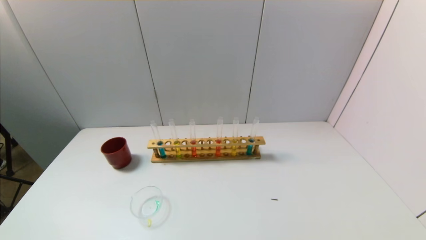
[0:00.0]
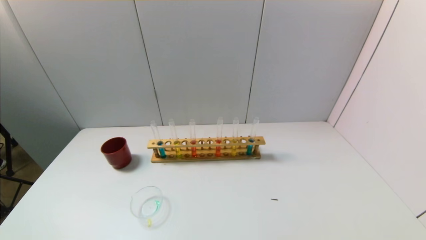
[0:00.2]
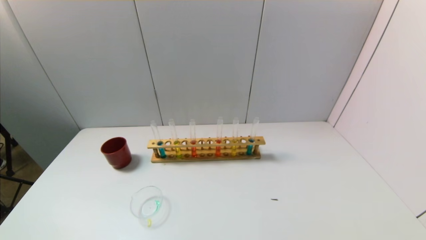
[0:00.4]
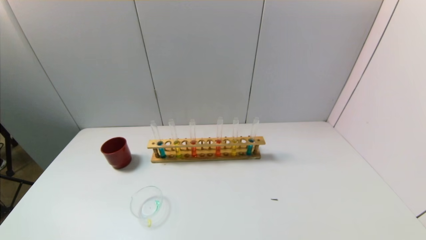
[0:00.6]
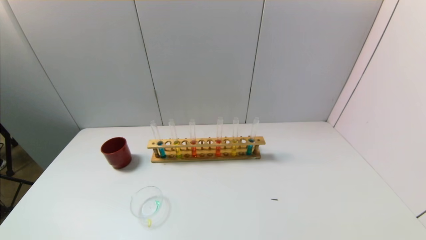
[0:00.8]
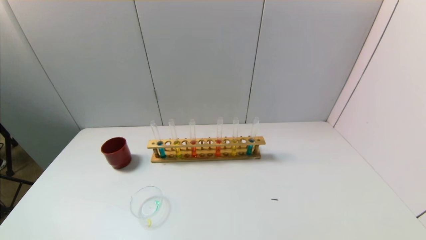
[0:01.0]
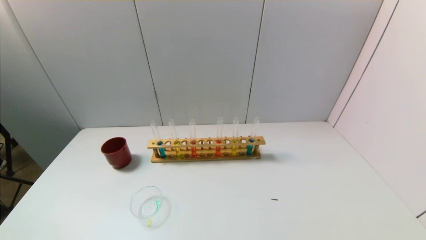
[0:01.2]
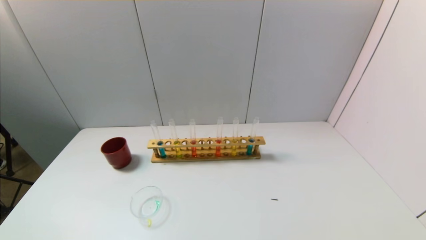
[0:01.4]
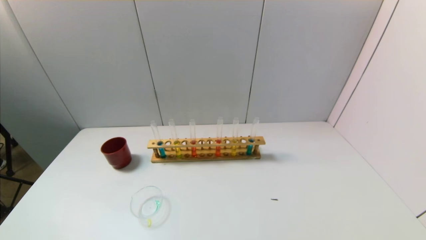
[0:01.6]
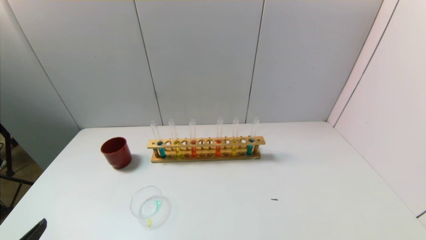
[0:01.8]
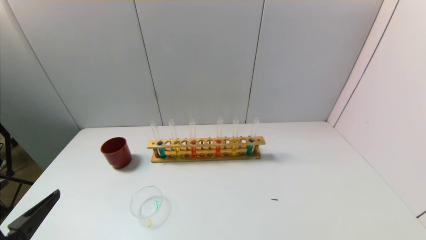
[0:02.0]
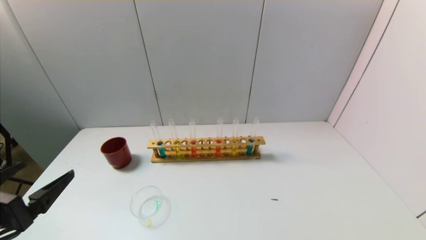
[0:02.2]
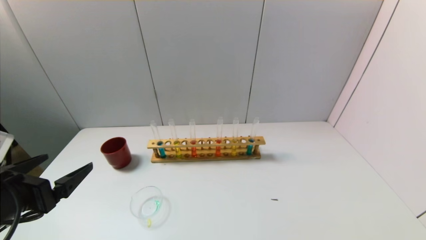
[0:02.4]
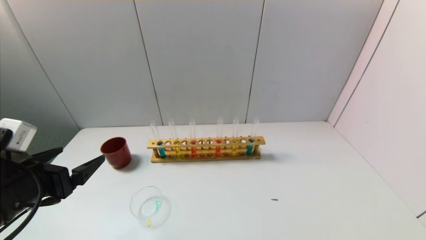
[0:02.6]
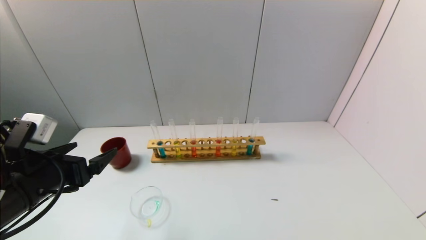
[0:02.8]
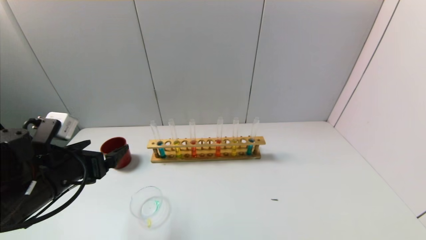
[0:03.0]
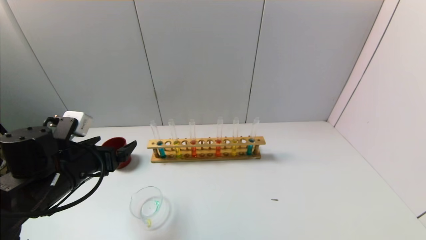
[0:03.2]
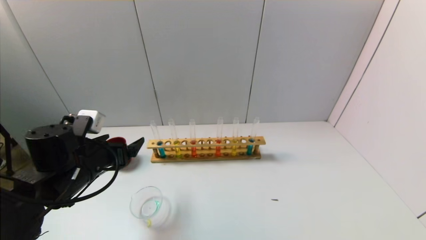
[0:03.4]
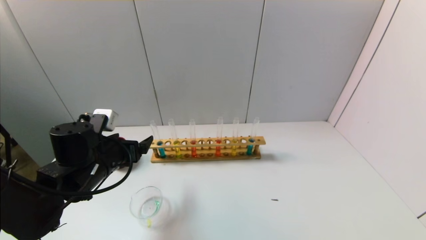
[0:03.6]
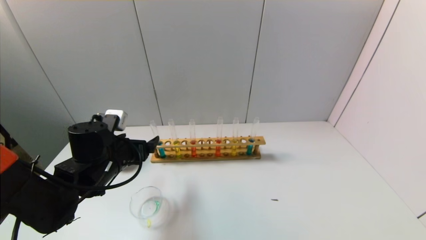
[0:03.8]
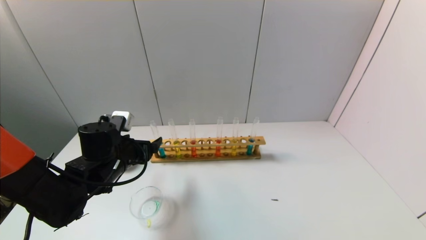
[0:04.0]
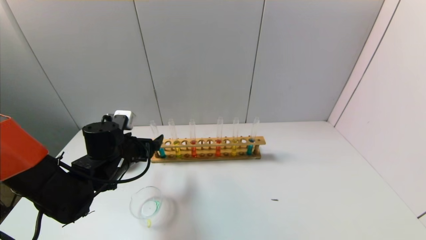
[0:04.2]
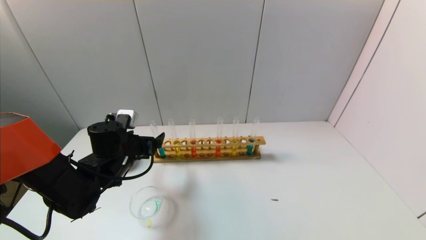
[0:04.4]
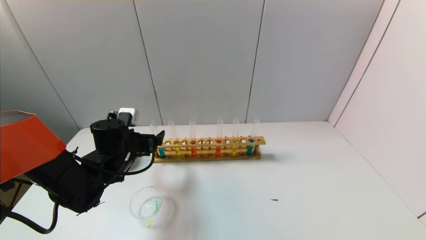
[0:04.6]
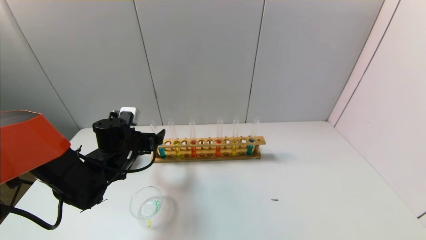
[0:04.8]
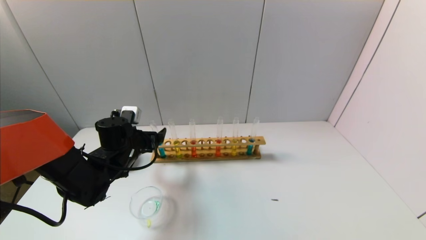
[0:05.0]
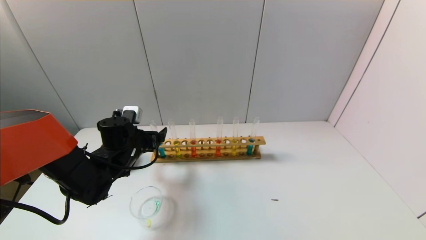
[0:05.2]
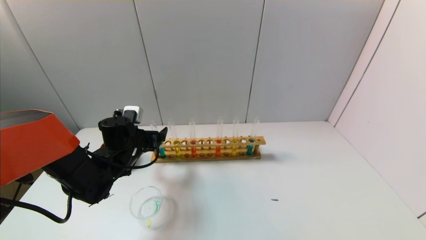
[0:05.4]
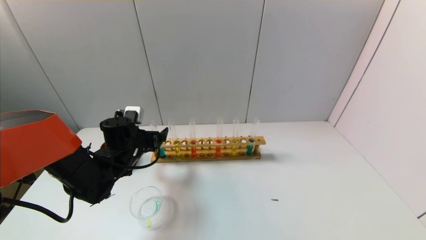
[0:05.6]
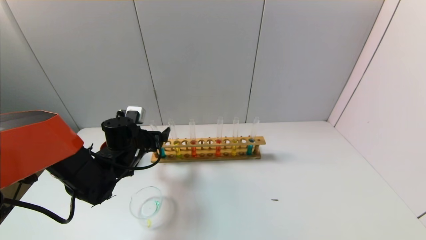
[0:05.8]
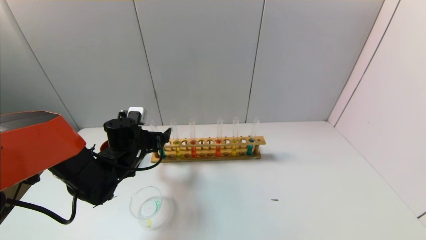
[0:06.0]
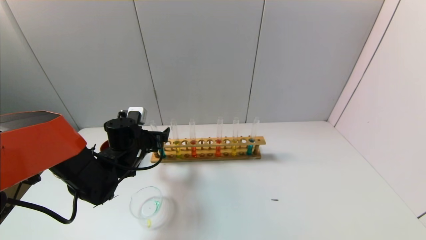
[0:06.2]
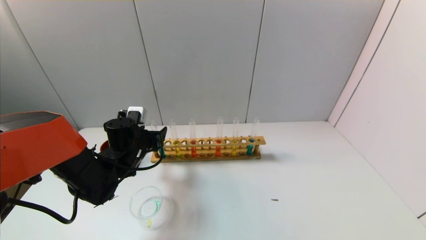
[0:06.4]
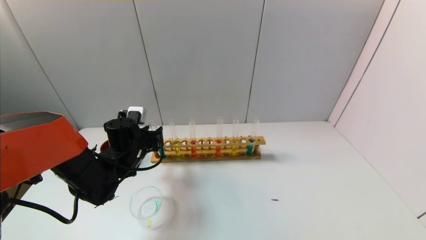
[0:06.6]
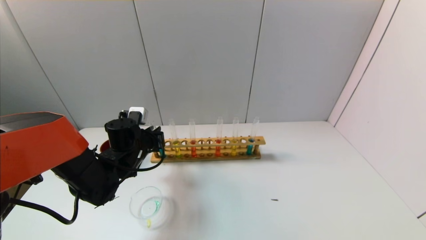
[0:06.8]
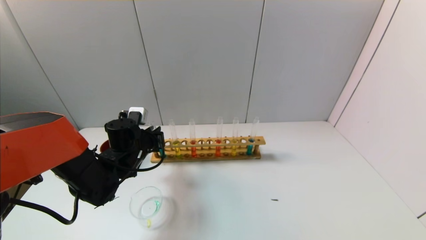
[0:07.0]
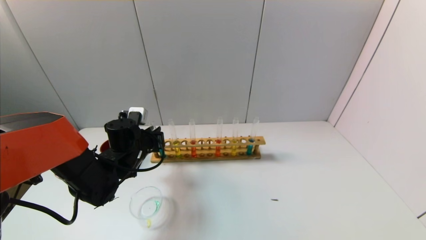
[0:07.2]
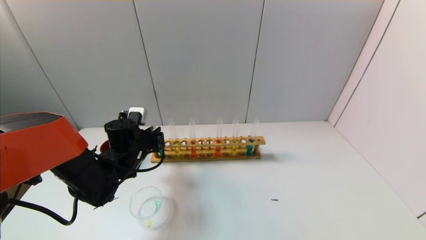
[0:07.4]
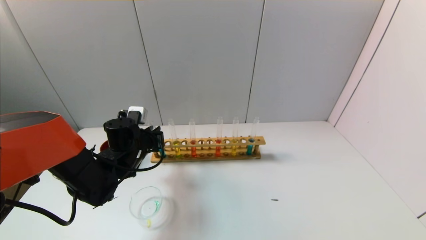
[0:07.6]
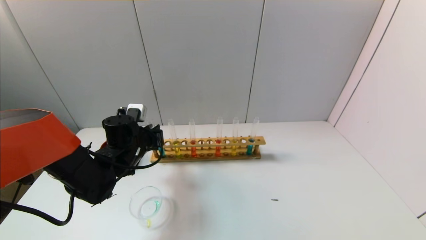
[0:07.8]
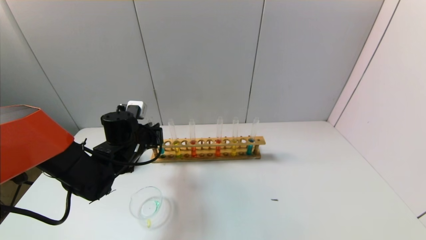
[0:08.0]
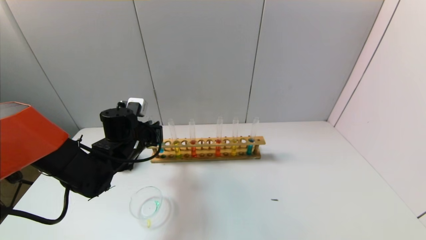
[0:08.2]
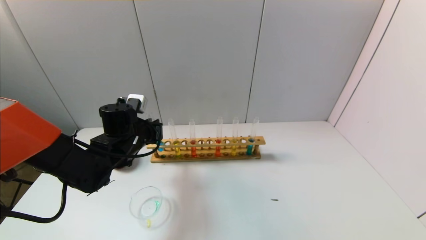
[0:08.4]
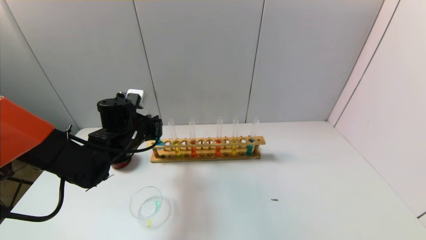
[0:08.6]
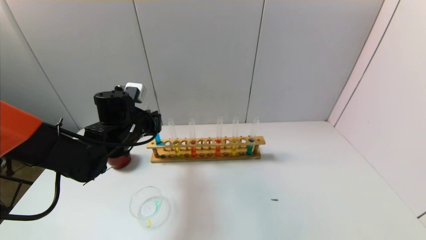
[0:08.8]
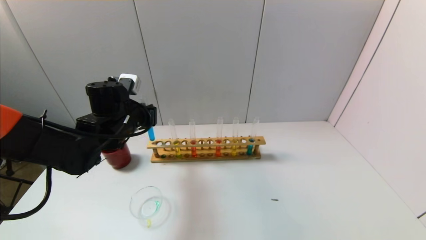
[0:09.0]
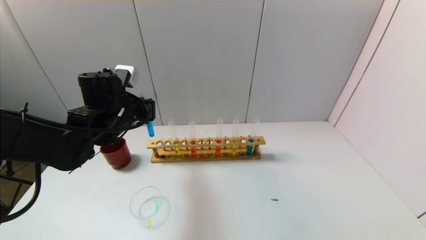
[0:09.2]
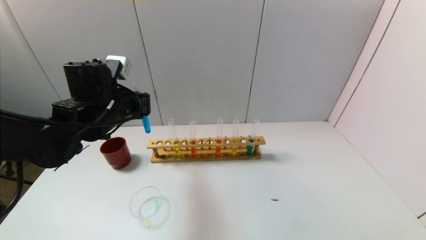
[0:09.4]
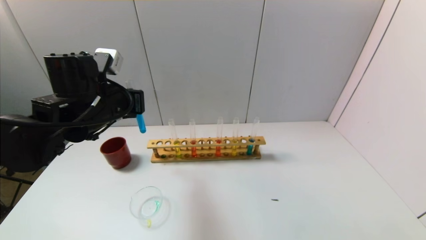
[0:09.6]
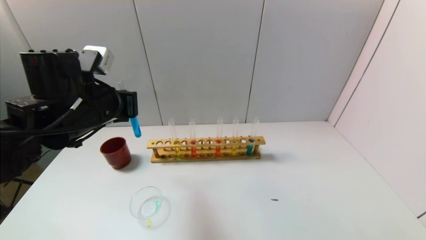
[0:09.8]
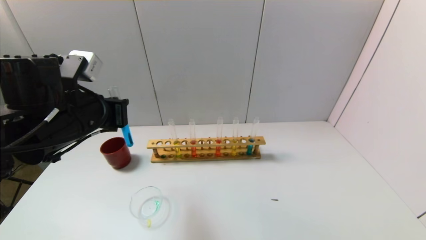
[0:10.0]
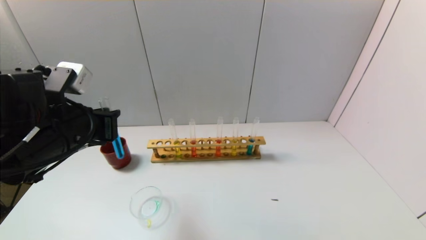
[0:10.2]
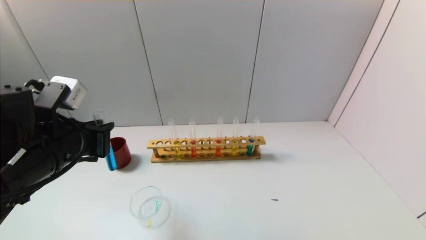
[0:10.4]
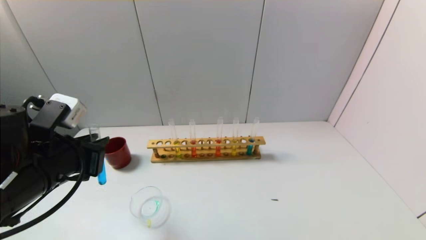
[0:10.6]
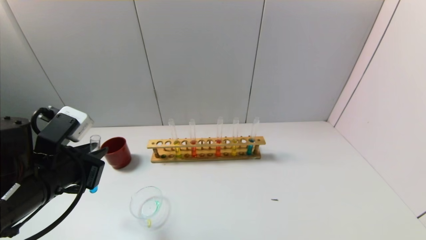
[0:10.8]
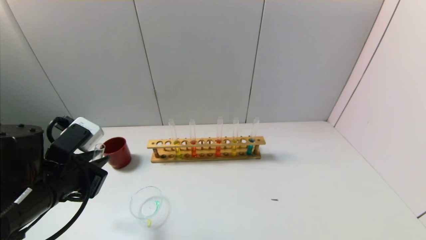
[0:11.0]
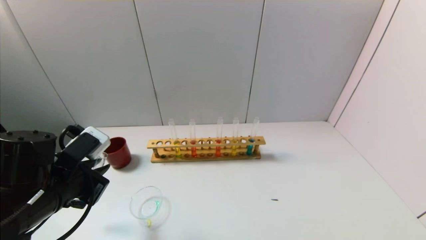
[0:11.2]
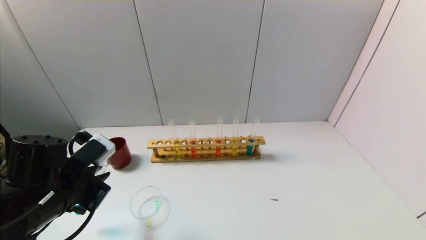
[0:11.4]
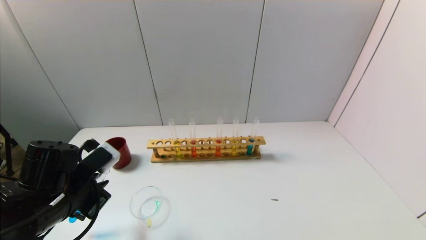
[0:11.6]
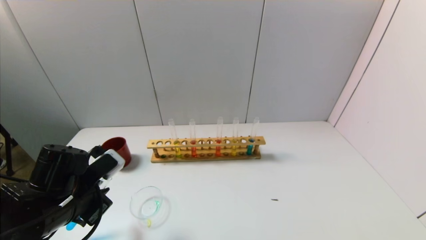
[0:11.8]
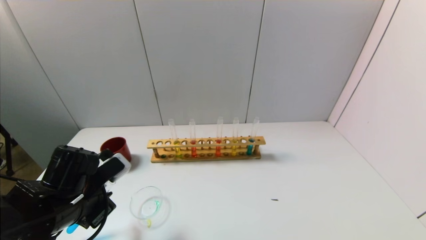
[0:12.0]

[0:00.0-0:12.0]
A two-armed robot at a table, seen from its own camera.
Task of the whole recording: pick up the test tube with yellow pigment and the test tube with blue pigment by grippers and pour them into the beaker.
Step, 0:00.0 to 0:06.6: Grasp the blue reagent with the left gripper.
0:01.6 to 0:03.0: The left gripper travels forward by approximately 20 cm.
0:03.0 to 0:04.4: The left gripper moves forward, to the right and downward, approximately 15 cm.
0:04.4 to 0:06.0: There are only small adjustments of the grippers.
0:06.0 to 0:07.6: The left gripper closes its fingers.
0:07.6 to 0:09.0: The left gripper heads upward, covering approximately 10 cm.
0:09.0 to 0:10.4: The left gripper shifts approximately 15 cm backward.
0:10.4 to 0:12.0: The left gripper moves downward, about 10 cm.

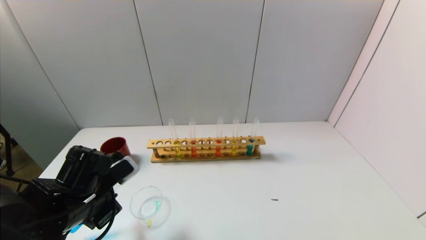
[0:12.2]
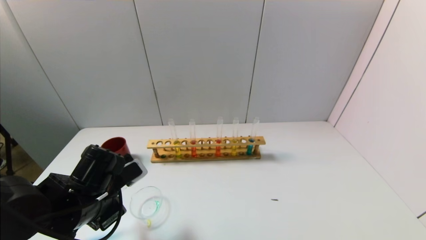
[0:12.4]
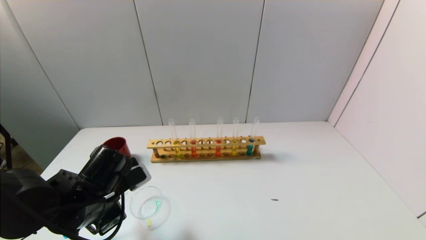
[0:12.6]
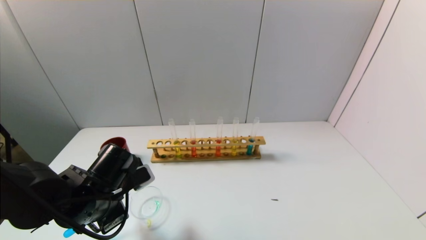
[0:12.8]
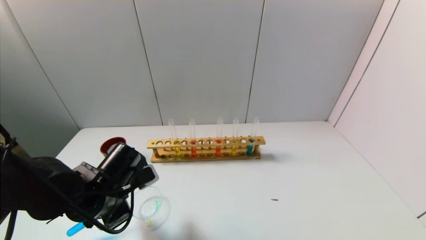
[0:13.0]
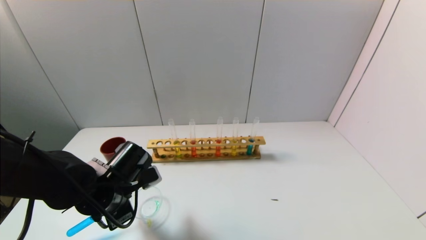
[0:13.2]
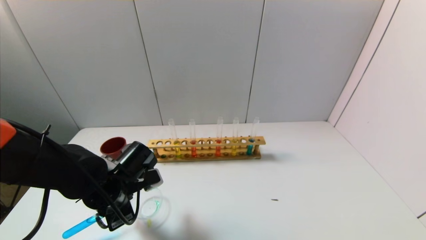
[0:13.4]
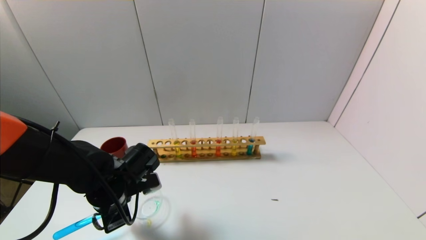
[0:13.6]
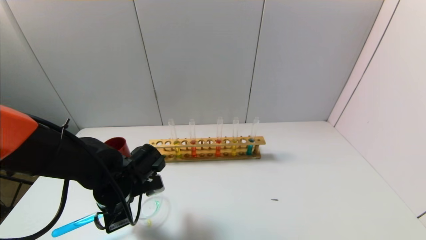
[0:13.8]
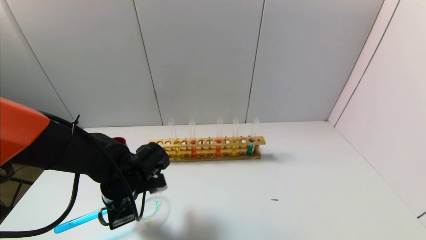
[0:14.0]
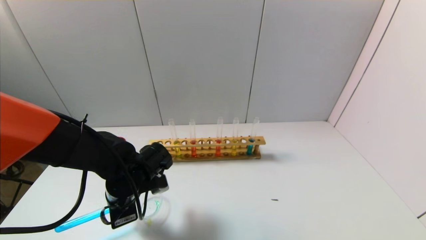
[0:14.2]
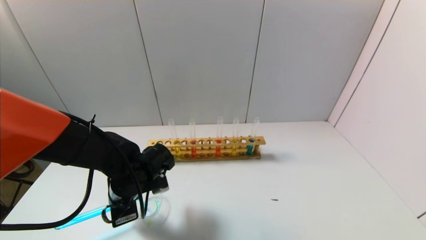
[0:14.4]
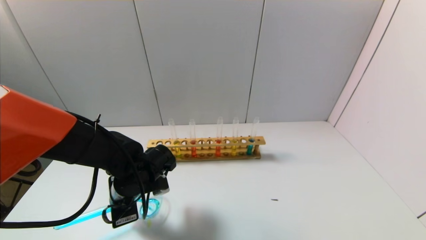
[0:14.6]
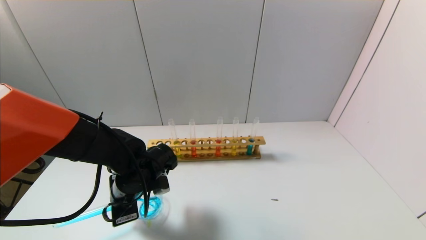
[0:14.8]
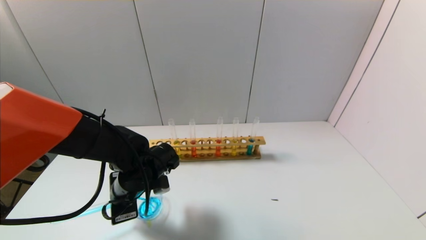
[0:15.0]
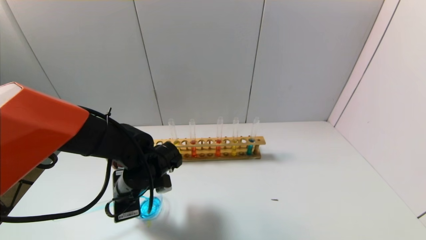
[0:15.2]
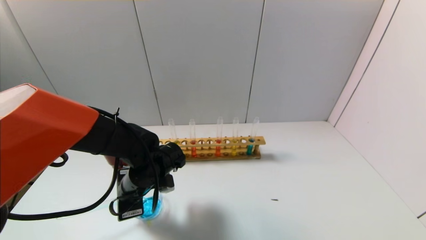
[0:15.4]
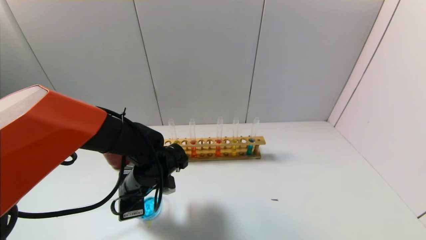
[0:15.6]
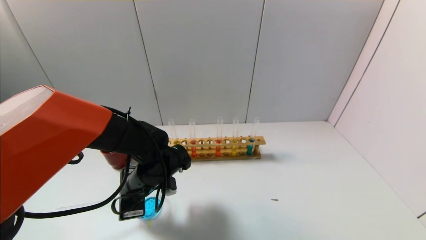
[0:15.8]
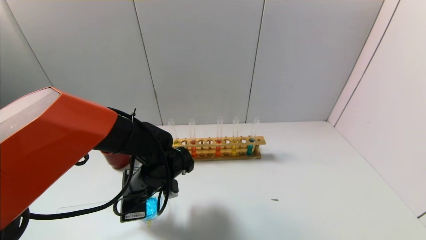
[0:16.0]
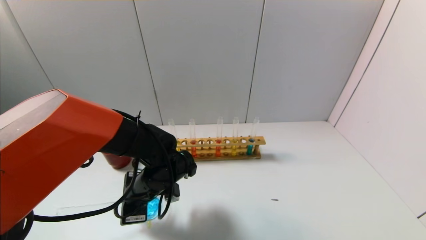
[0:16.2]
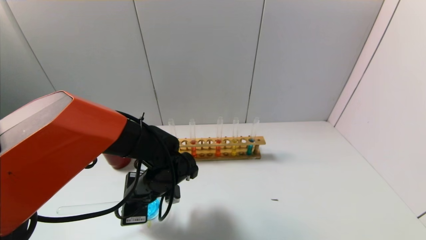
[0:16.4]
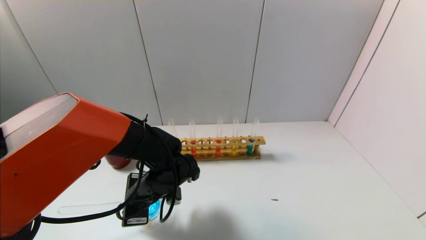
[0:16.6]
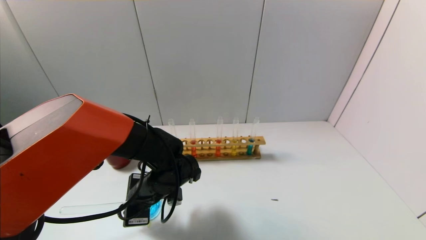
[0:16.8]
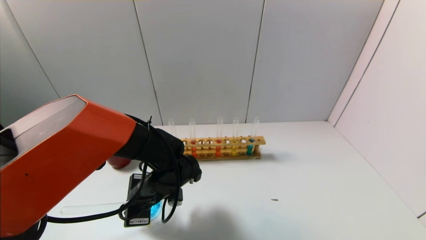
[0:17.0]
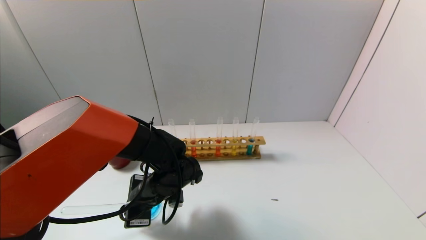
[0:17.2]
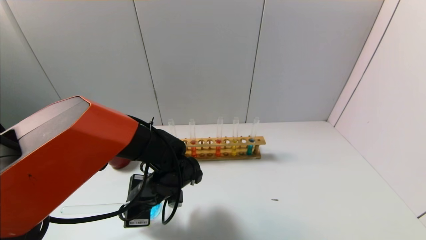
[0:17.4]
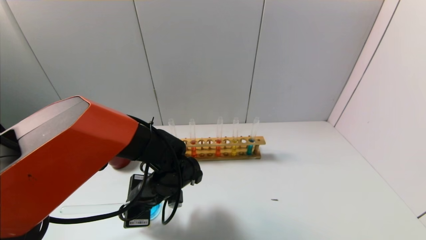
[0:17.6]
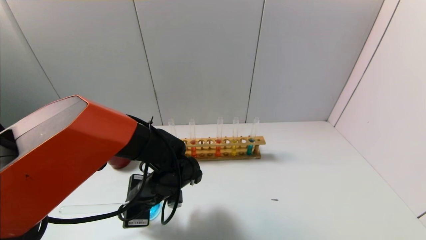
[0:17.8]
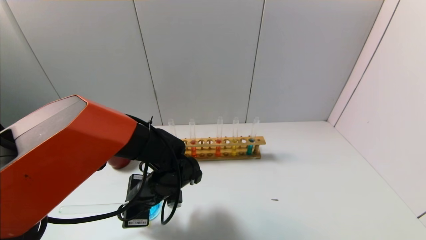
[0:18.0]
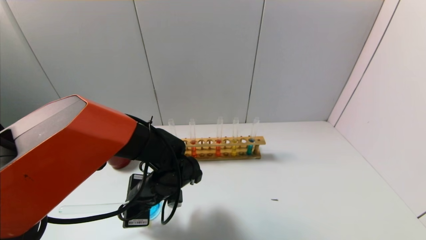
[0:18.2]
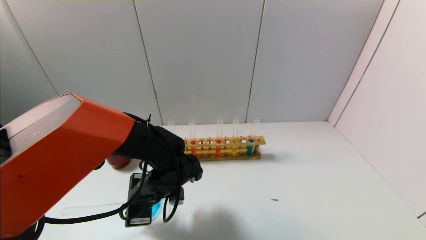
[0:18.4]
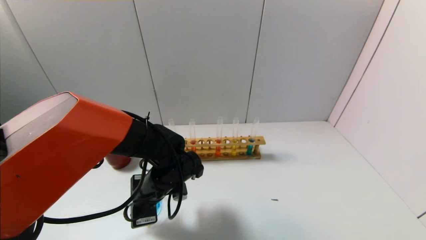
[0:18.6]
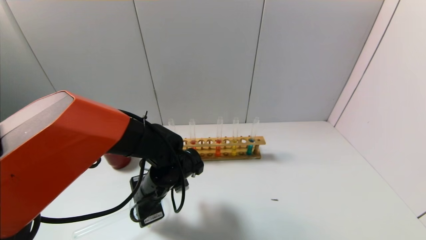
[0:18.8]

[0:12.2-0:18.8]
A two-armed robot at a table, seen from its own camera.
Task of the whole recording: pick up the test tube with yellow pigment and the test tube with blue pigment by grippers and pour them into the beaker.
Step, 0:12.2 to 0:16.8: Pour the blue reagent into the graduated cylinder with the left gripper.
0:12.2 to 0:13.8: The left gripper changes place by some 5 cm.
0:13.8 to 0:15.4: The grippers move only a little.
0:15.4 to 0:17.2: There are only small adjustments of the grippers.
